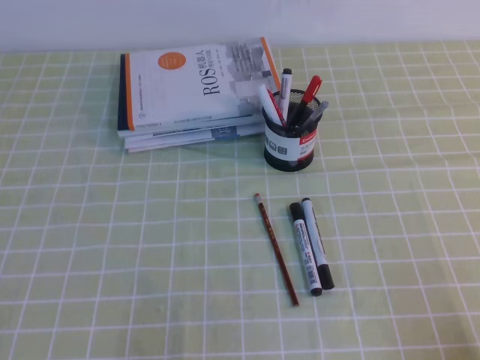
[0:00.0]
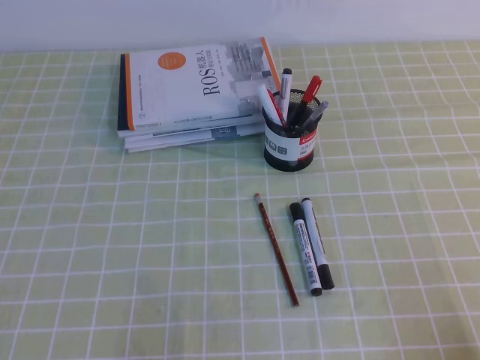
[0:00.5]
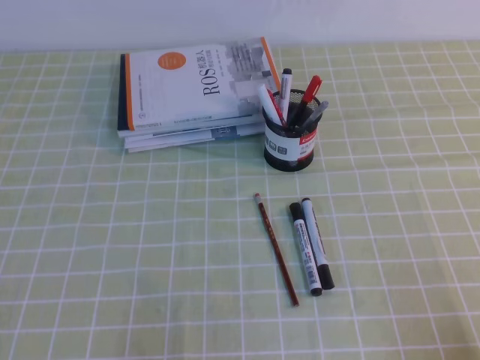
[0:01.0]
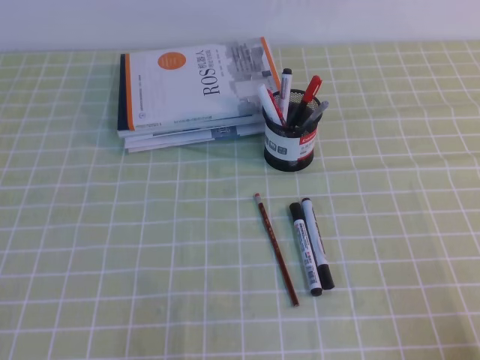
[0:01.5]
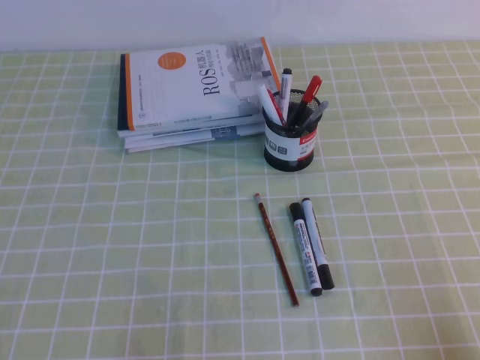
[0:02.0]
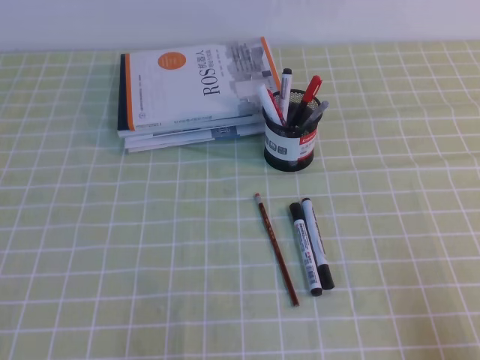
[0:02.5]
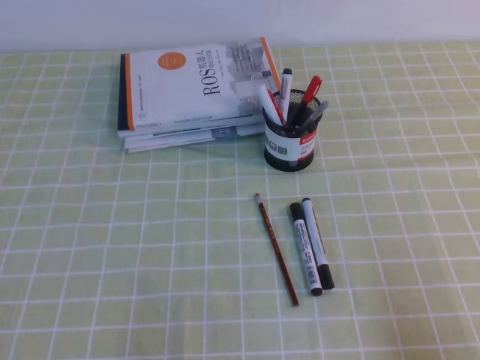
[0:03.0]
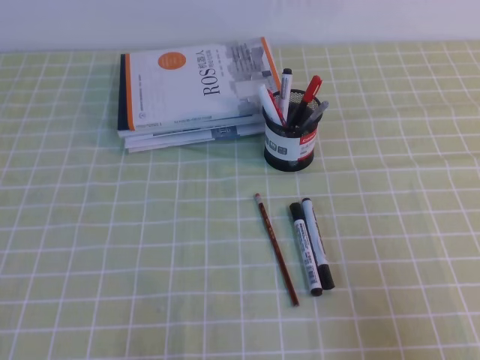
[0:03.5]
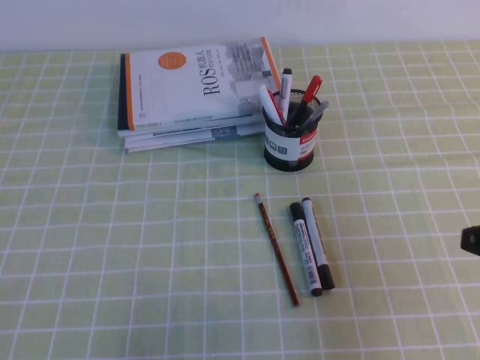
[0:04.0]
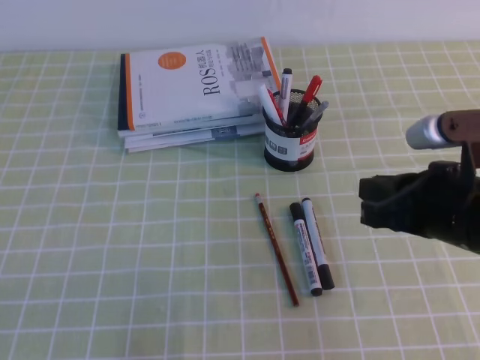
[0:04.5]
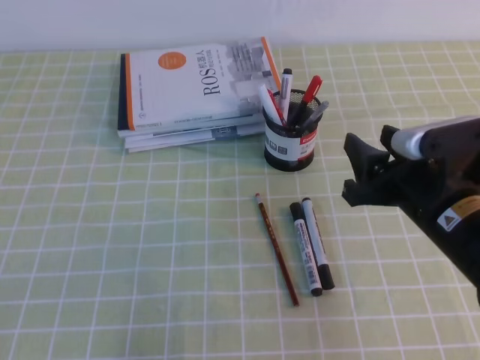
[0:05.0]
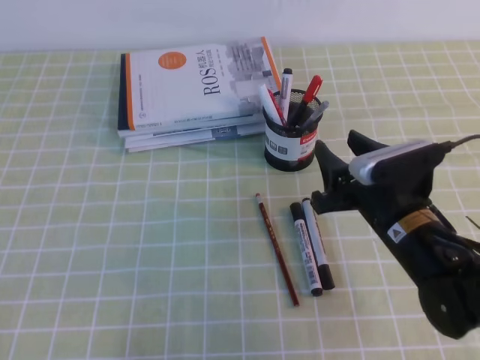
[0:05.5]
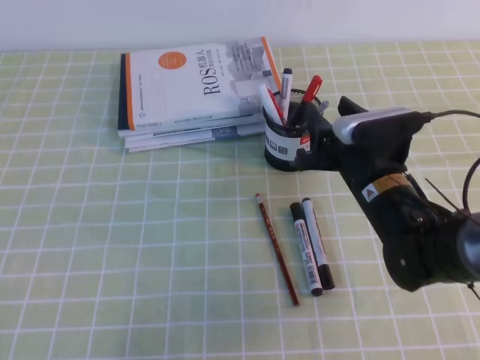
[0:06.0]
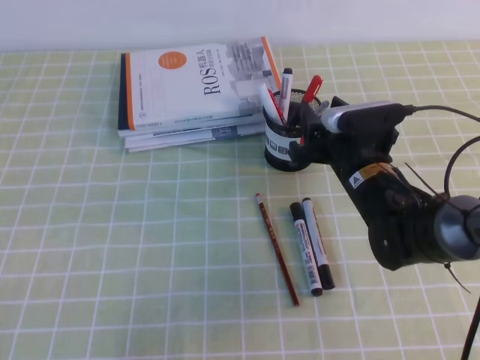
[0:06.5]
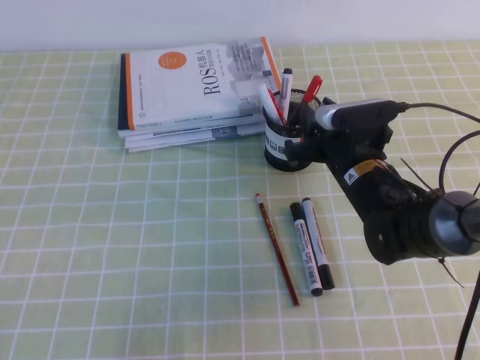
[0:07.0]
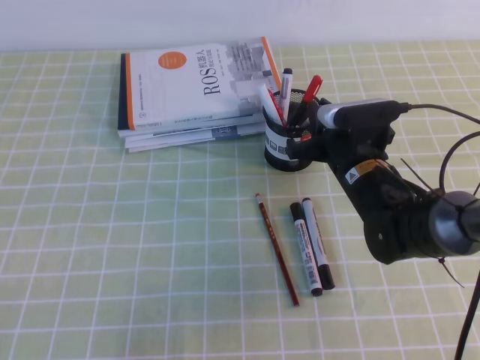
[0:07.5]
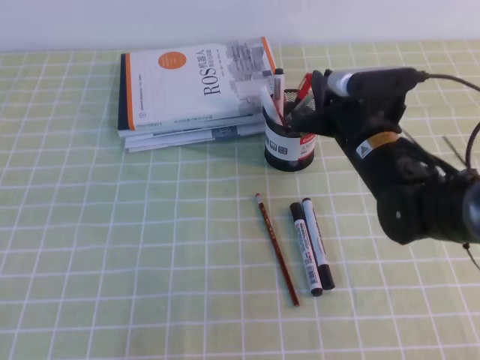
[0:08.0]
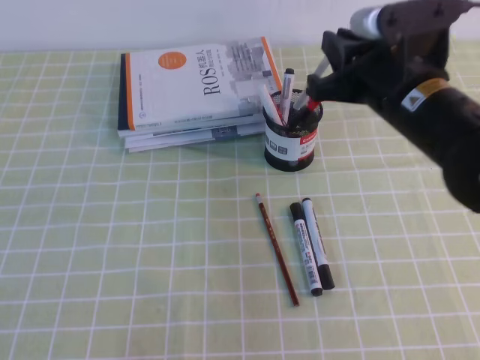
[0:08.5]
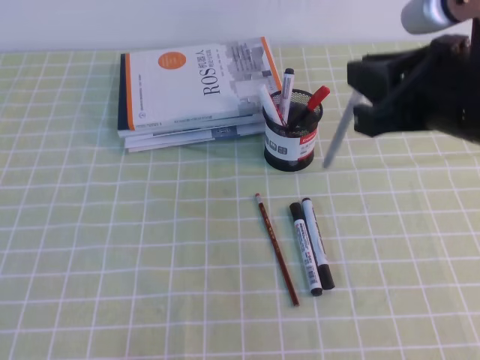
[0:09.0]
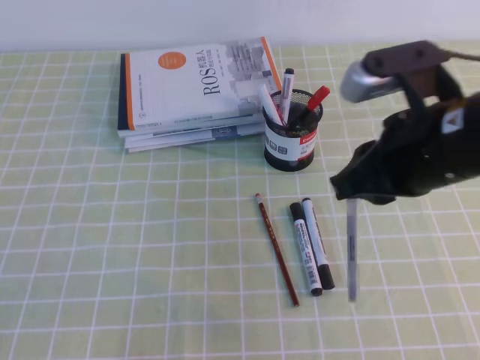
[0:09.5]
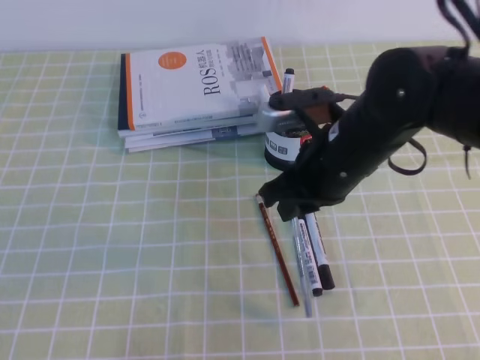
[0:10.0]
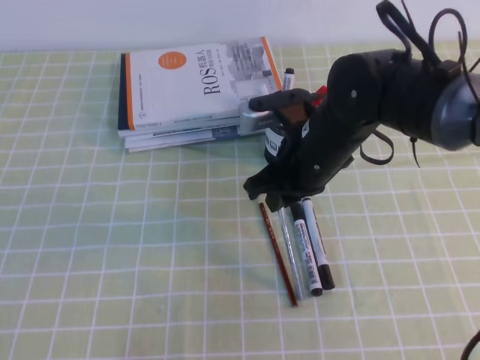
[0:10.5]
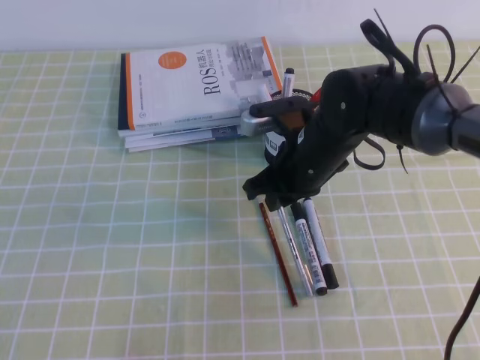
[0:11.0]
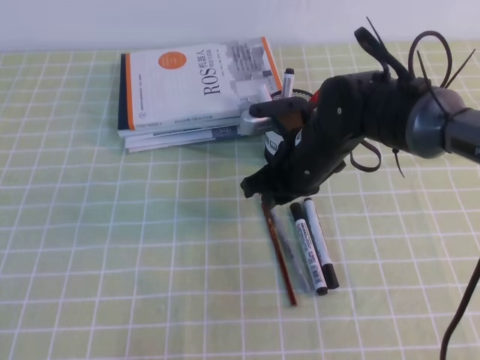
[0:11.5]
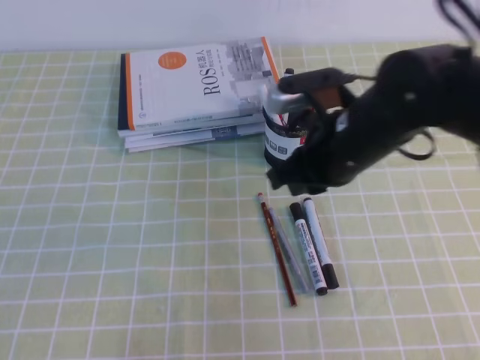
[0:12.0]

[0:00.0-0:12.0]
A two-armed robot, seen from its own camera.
0:02.0 to 0:04.0: The right gripper heads forward and upward, covering about 15 cm.
0:04.0 to 0:06.0: The right gripper heads forward, to the left and downward, covering about 20 cm, and opens.
0:06.0 to 0:08.0: The right gripper closes.
0:08.0 to 0:10.0: The right gripper moves upward and backward, roughly 10 cm.

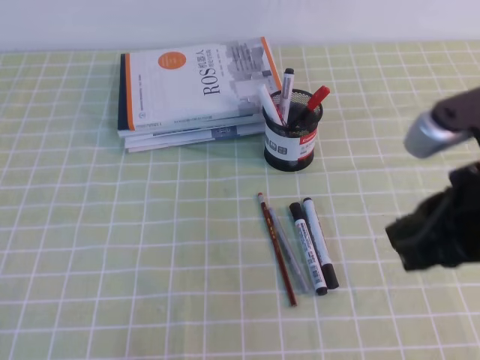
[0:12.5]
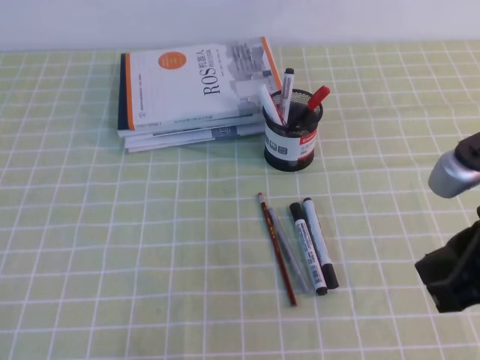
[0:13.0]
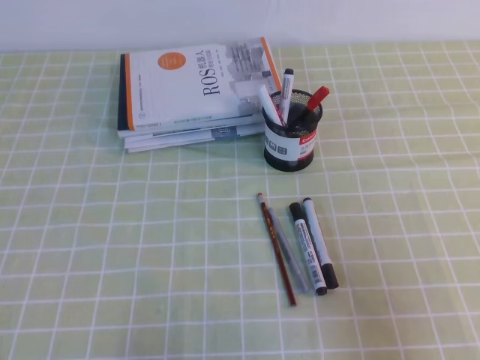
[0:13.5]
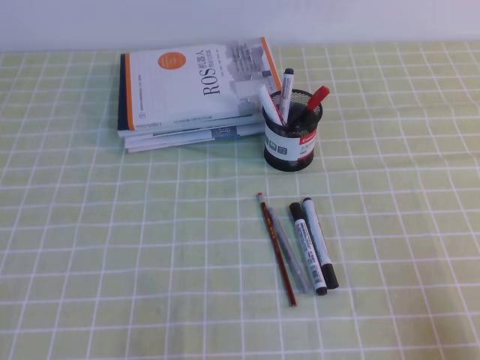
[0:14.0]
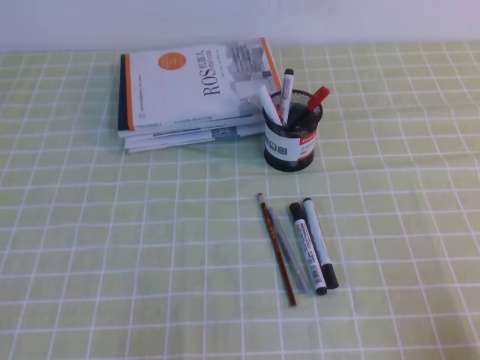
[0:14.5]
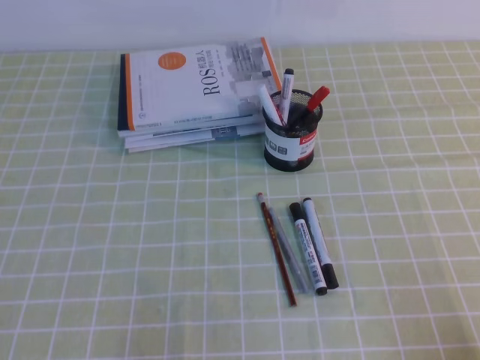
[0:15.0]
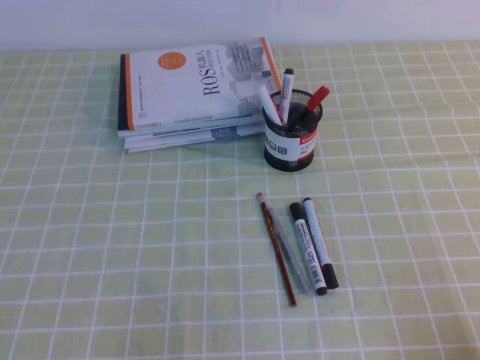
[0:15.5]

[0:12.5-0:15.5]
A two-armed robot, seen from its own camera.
Step, 0:12.5 to 0:15.5: Pick up the pen from the pen holder.
0:12.5 to 0:14.0: The right gripper moves downward, to the right and backward, about 20 cm.
